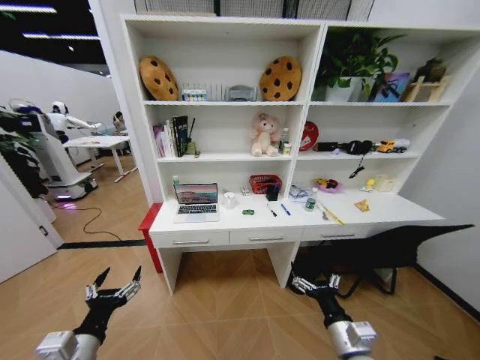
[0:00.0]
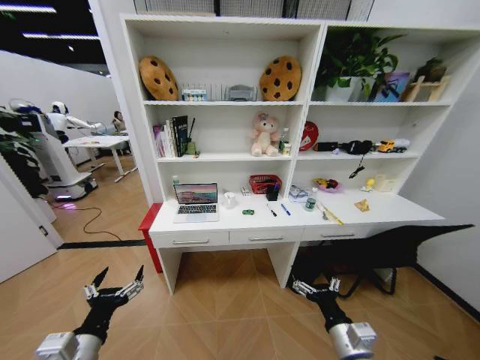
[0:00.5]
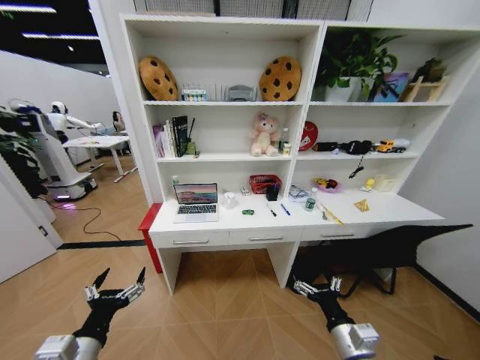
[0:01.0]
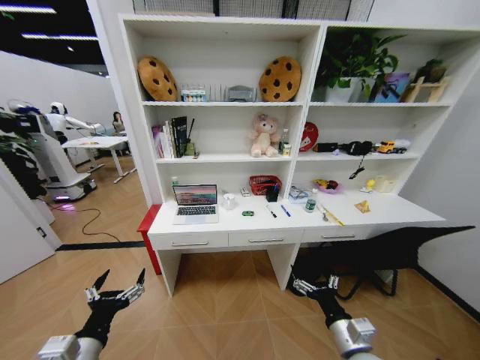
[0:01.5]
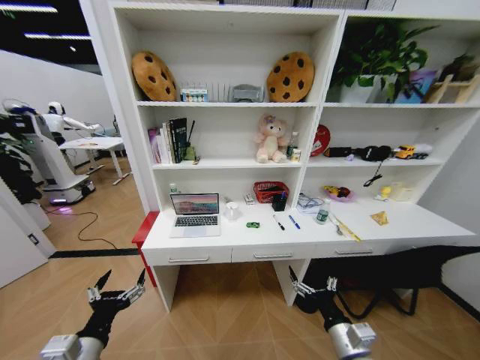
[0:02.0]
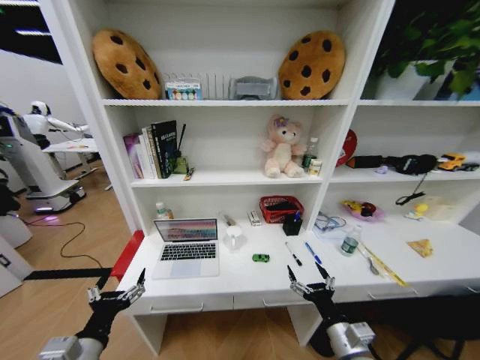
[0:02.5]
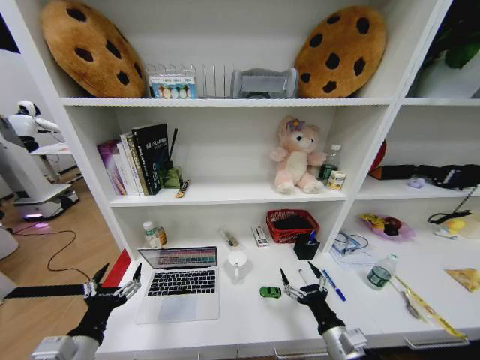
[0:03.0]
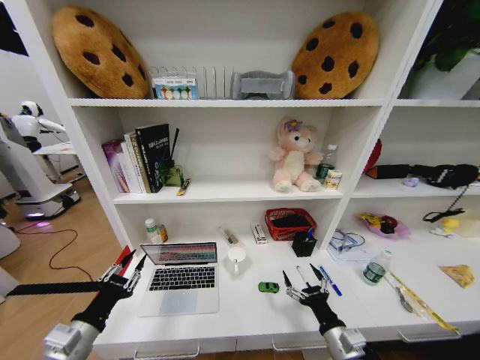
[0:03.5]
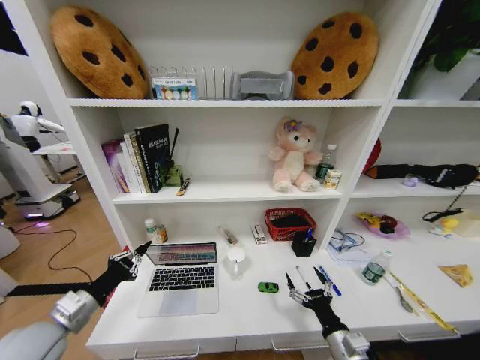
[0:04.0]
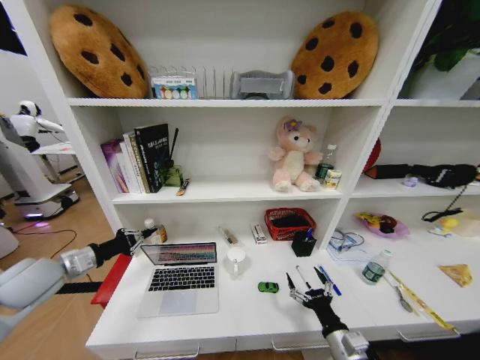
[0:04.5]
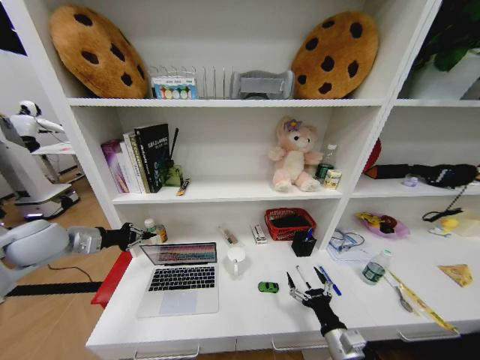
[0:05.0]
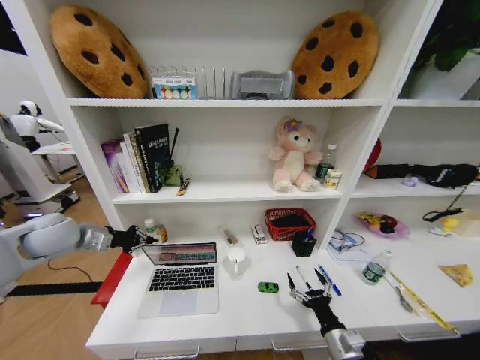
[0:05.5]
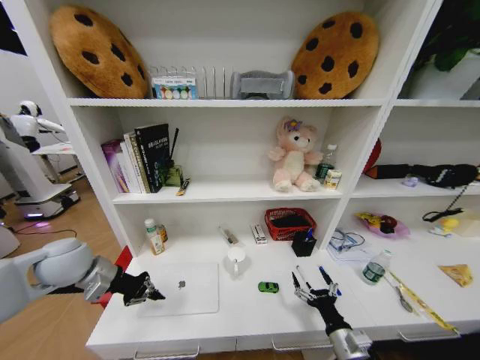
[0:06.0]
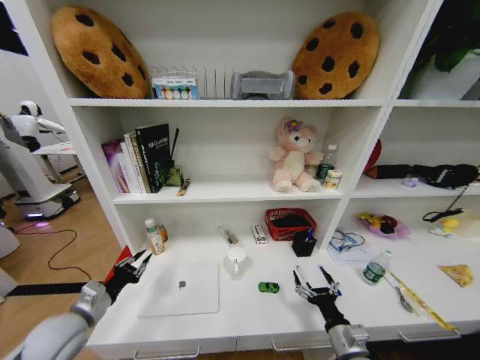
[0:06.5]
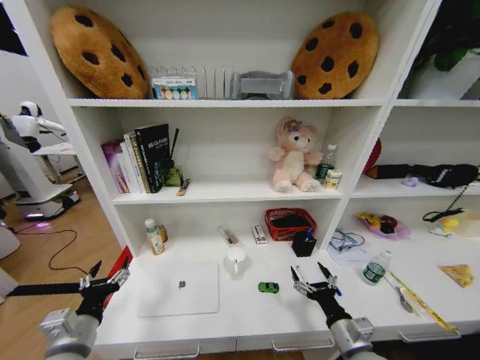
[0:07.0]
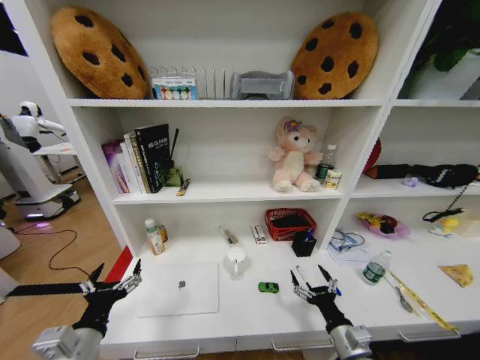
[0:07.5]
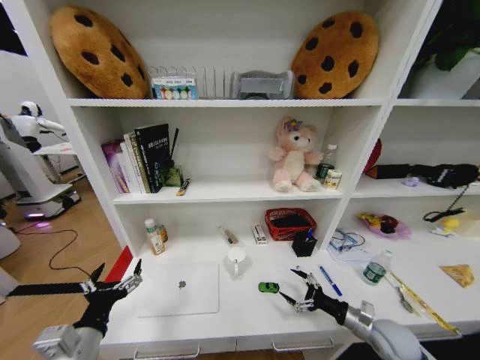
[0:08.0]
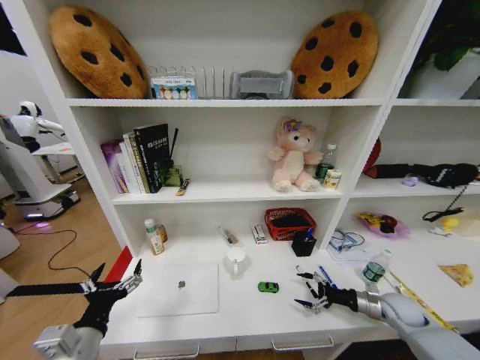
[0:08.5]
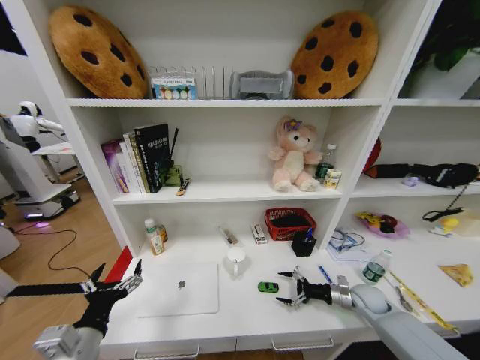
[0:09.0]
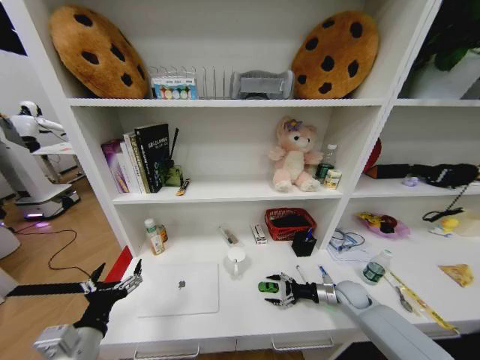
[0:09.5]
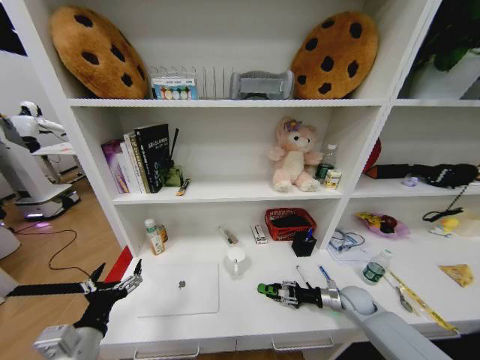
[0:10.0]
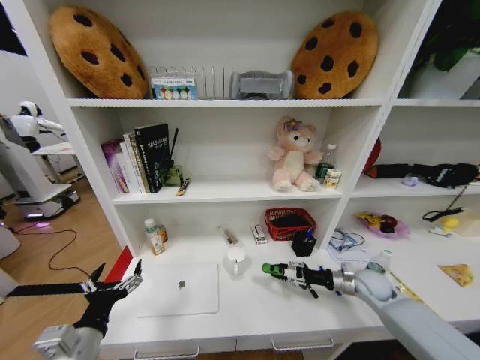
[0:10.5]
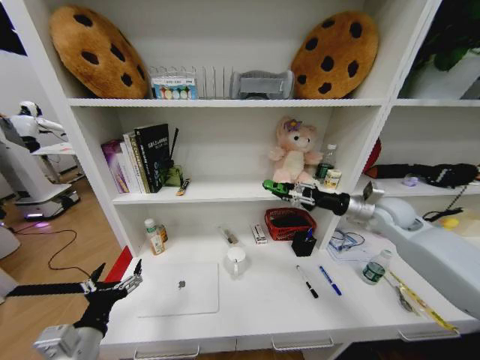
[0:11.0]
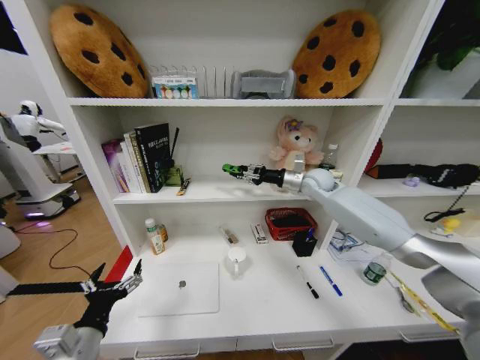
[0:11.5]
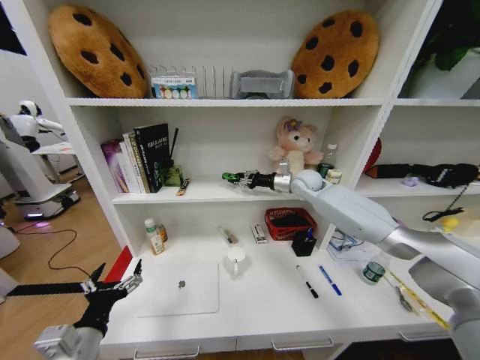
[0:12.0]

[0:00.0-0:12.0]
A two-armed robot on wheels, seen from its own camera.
Task of the whole recording: Organize the objects on the table.
0:02.0 to 0:04.0: The left gripper goes about 10 cm forward and to the left, and closes up.
0:04.0 to 0:06.0: The left gripper travels forward and upward by roughly 15 cm.
0:06.0 to 0:08.0: The right gripper travels to the right and forward by about 10 cm; the left gripper travels backward and to the right by about 25 cm, and opens.
0:08.0 to 0:10.0: The right gripper shifts approximately 15 cm forward, and closes its fingers.
0:10.0 to 0:12.0: The right gripper heads upward, forward and to the left, covering some 40 cm.

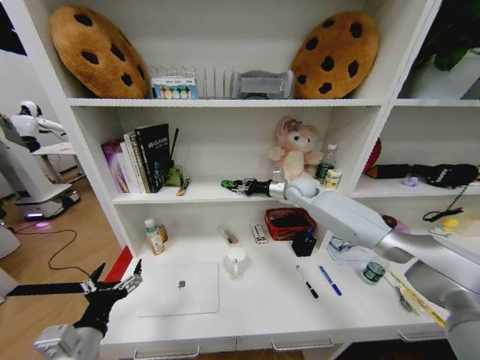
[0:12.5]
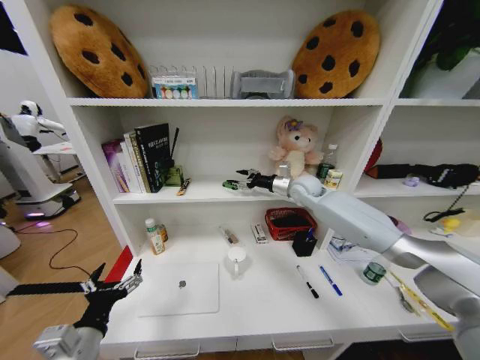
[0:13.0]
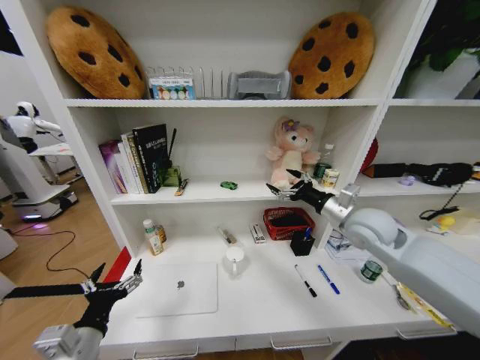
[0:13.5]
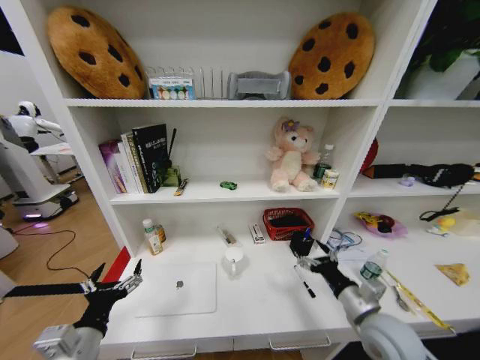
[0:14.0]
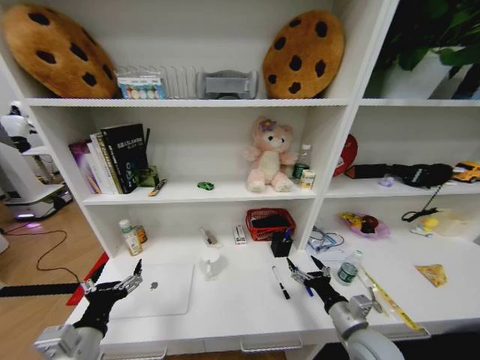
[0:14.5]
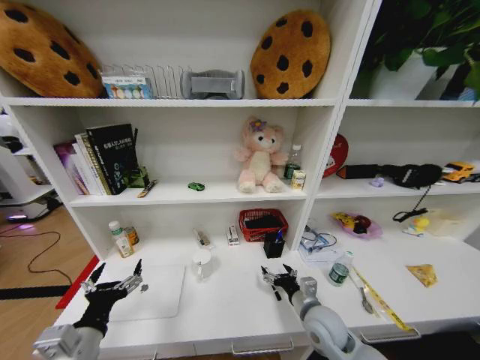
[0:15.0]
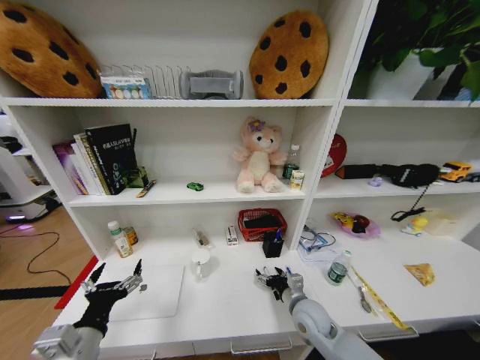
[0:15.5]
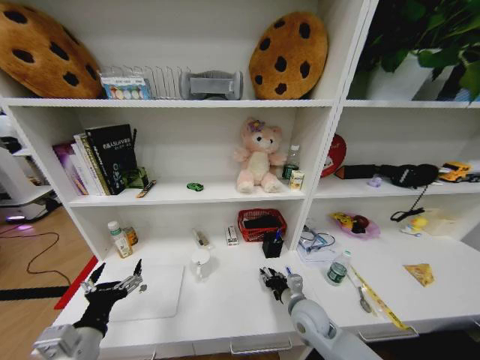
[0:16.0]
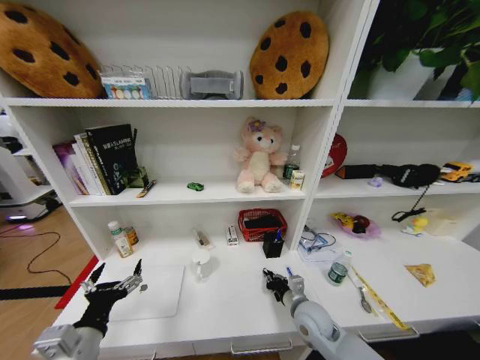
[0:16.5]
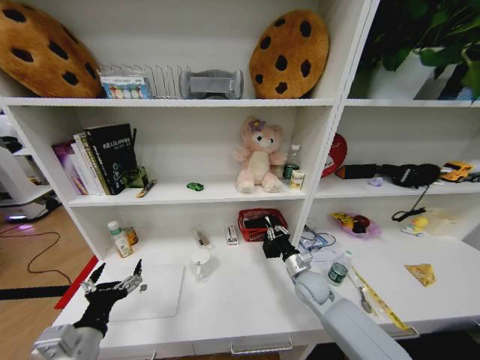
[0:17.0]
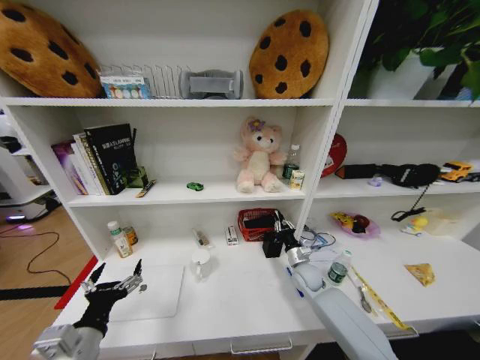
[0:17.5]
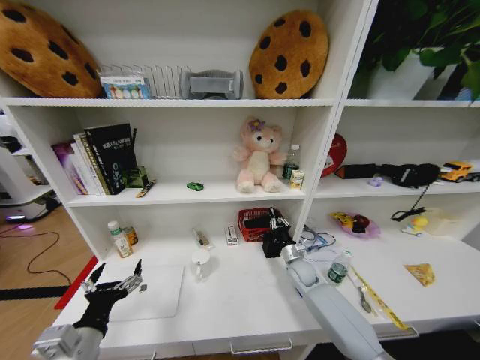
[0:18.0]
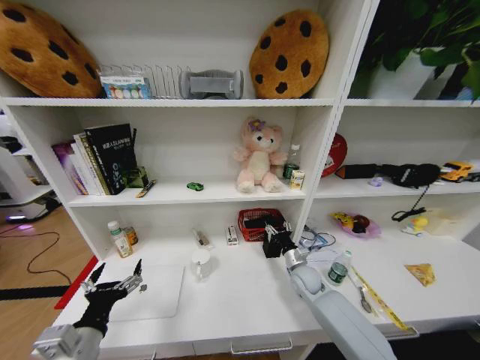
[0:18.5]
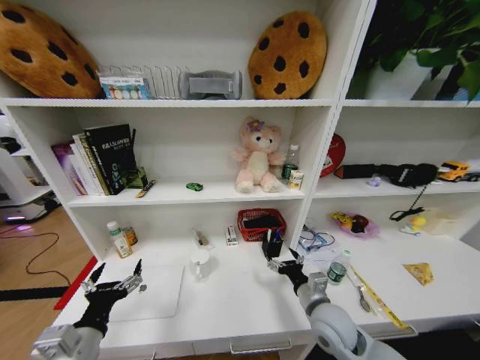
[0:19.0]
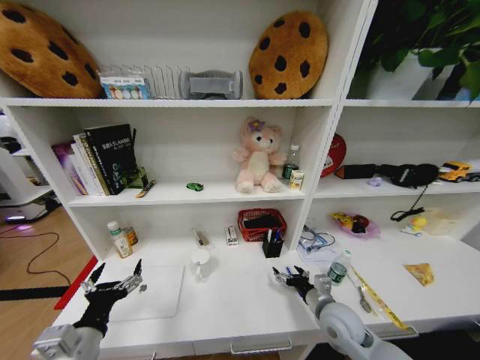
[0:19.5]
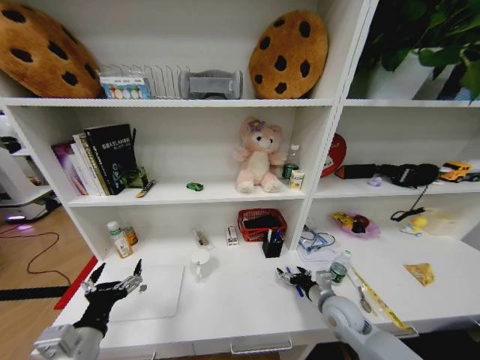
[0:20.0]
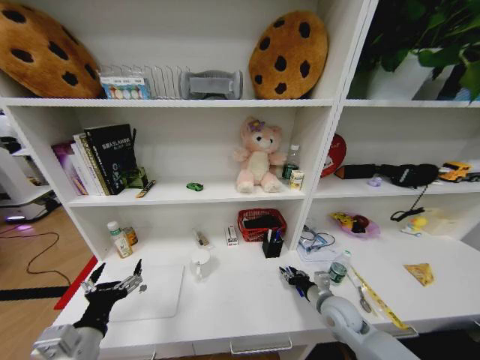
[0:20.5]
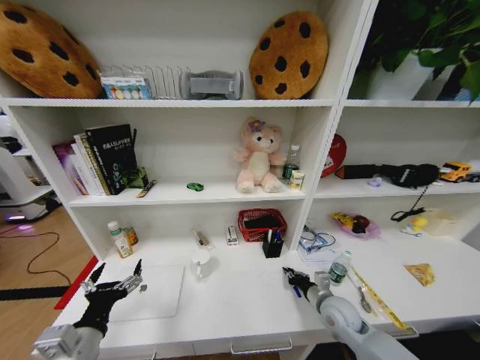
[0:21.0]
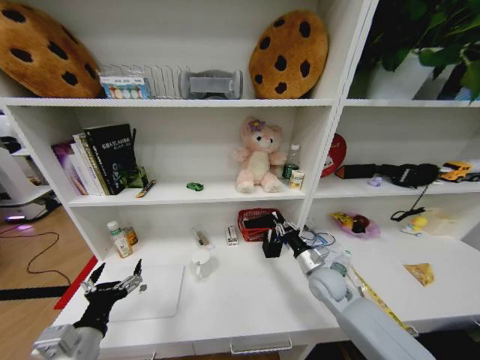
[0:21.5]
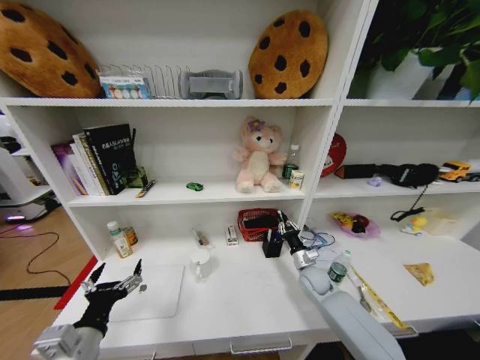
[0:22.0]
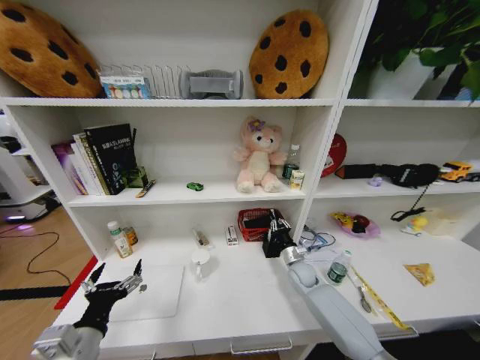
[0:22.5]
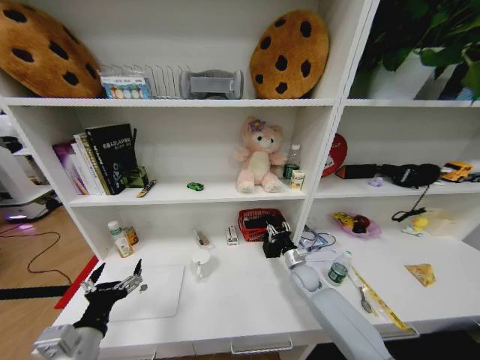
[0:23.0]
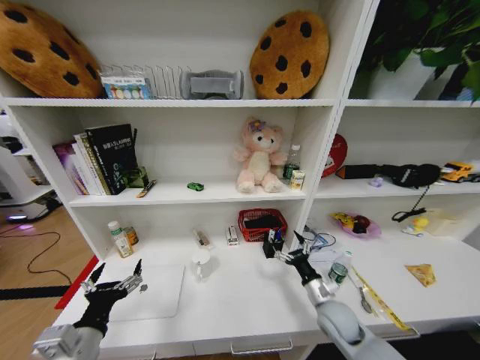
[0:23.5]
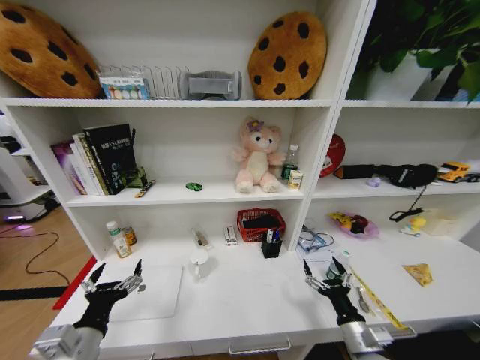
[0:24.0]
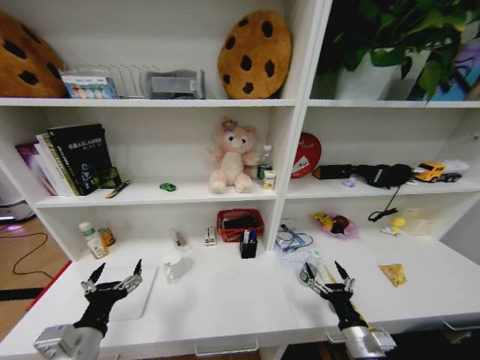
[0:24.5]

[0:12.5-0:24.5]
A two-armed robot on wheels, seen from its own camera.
Task of the whole recording: Organize the objects on the table.
0:12.5 to 0:14.5: The right gripper travels backward and downward by roughly 40 cm, and opens its fingers.
0:14.5 to 0:16.5: The right gripper is displaced to the left, forward and downward by about 15 cm, and closes its fingers.
0:16.5 to 0:18.5: The right gripper shifts approximately 10 cm forward, and opens its fingers.
0:18.5 to 0:20.5: The right gripper shifts about 10 cm backward and to the right, and opens, then closes again.
0:20.5 to 0:22.5: The right gripper goes about 15 cm forward, and closes up.
0:22.5 to 0:24.5: The right gripper heads backward, covering roughly 30 cm, and opens up.

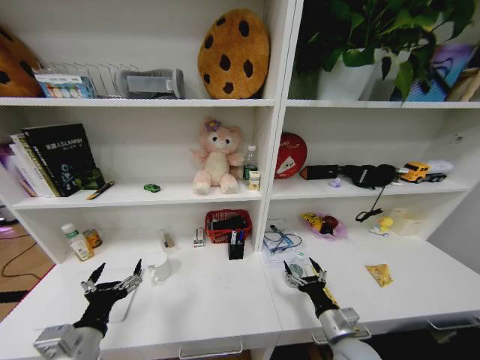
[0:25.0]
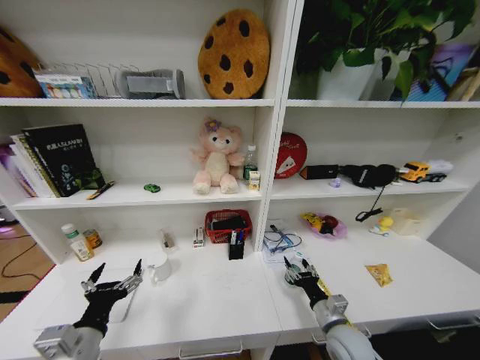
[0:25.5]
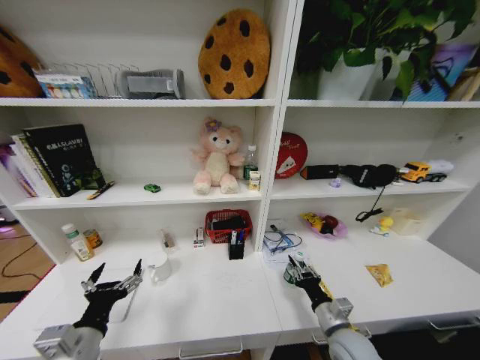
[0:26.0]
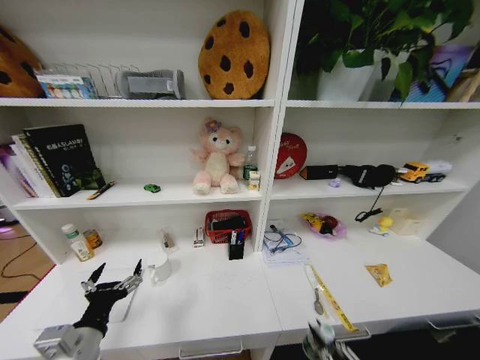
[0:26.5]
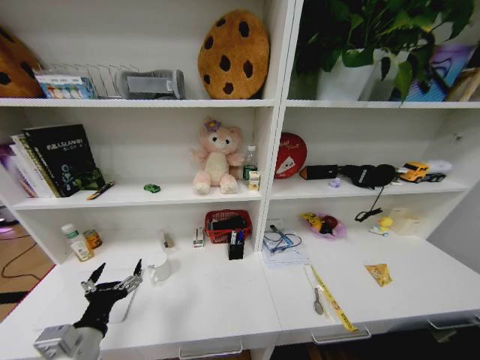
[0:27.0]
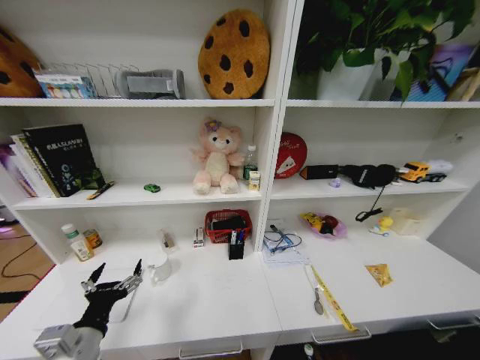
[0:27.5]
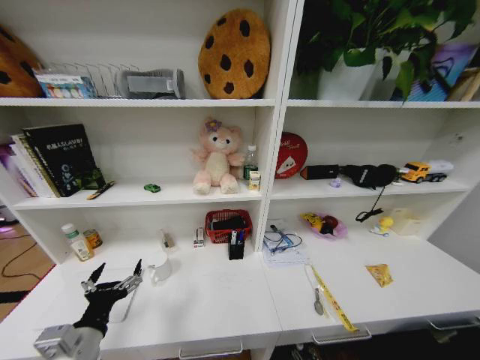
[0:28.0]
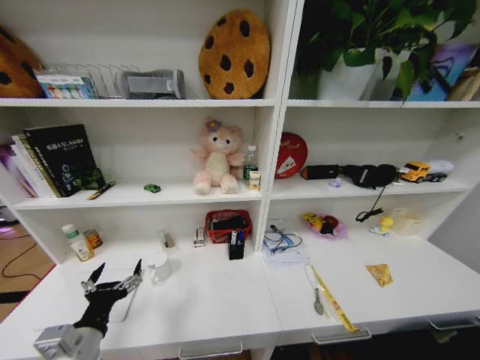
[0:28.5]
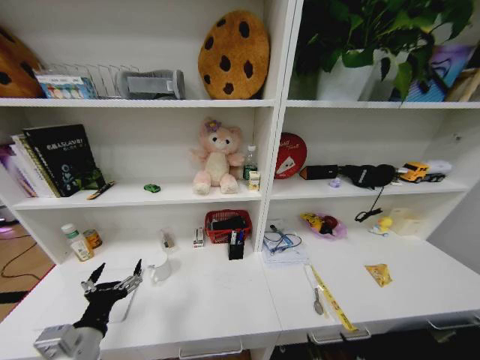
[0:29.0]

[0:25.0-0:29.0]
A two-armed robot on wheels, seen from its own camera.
Task of the whole recording: Organize the objects on the table.
0:25.0 to 0:27.0: The right gripper moves backward and downward, some 30 cm, and closes.
